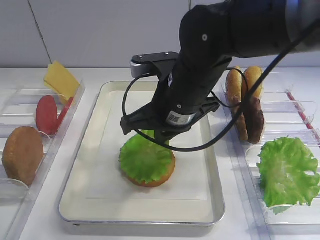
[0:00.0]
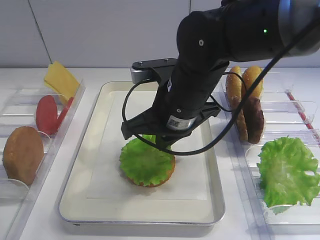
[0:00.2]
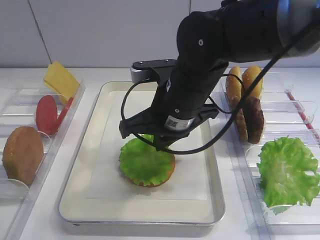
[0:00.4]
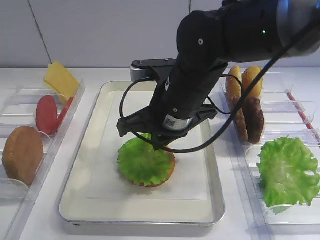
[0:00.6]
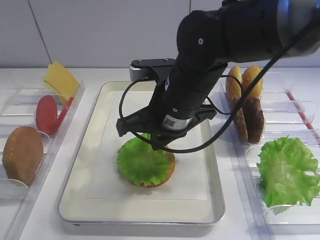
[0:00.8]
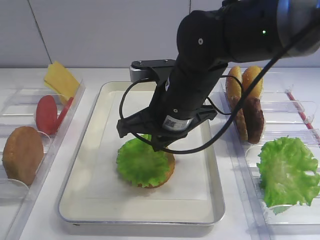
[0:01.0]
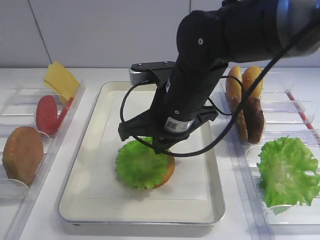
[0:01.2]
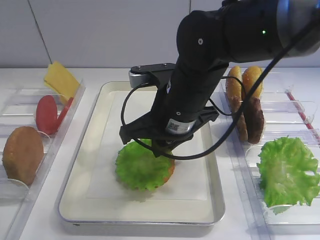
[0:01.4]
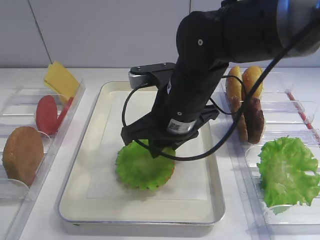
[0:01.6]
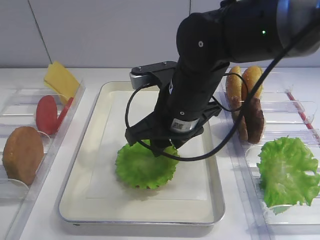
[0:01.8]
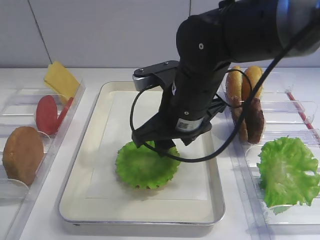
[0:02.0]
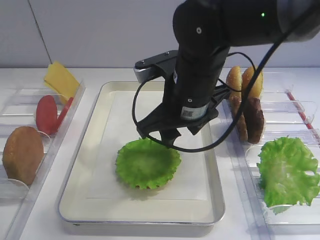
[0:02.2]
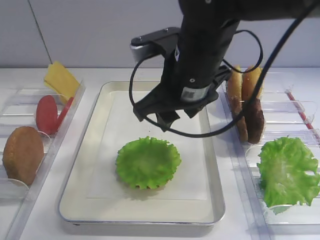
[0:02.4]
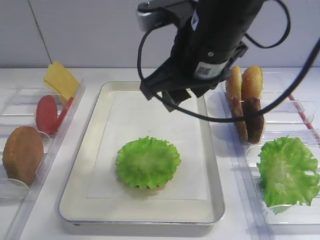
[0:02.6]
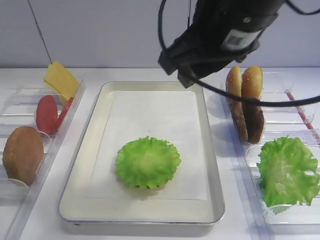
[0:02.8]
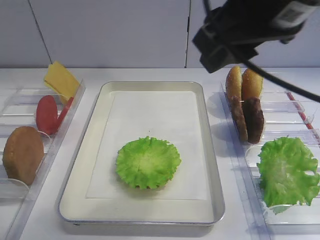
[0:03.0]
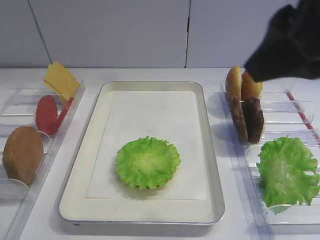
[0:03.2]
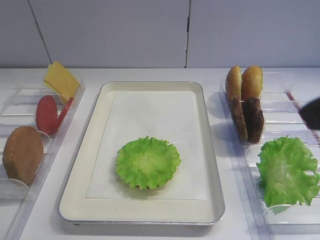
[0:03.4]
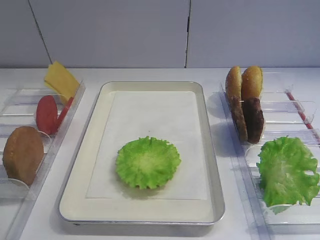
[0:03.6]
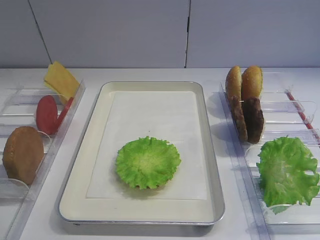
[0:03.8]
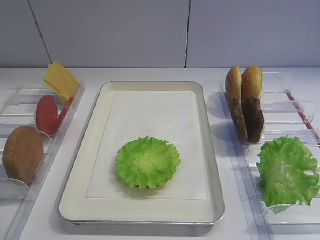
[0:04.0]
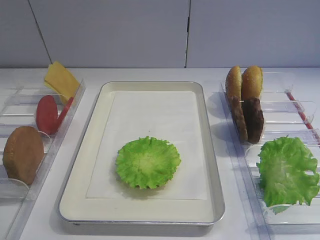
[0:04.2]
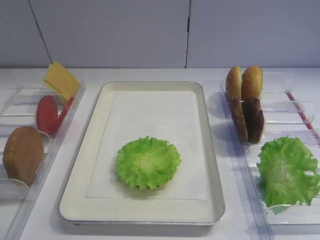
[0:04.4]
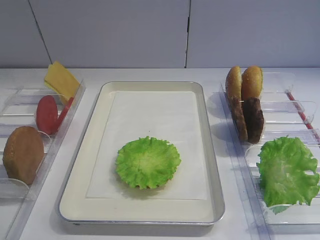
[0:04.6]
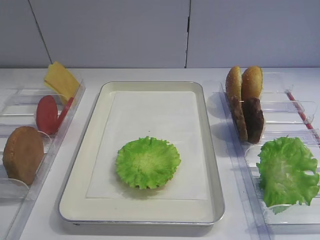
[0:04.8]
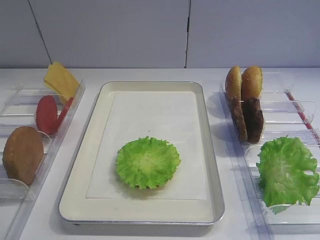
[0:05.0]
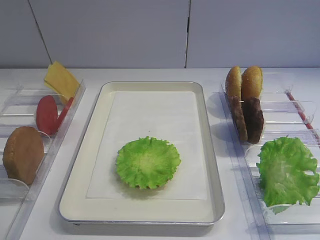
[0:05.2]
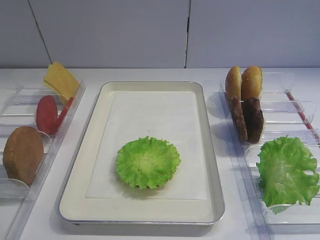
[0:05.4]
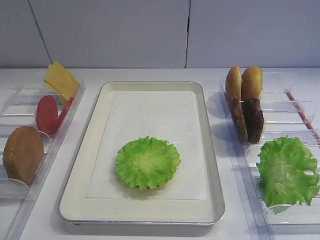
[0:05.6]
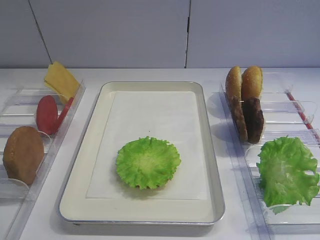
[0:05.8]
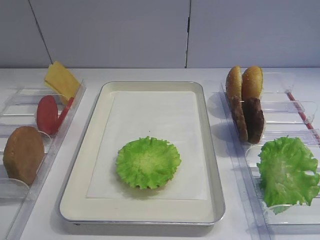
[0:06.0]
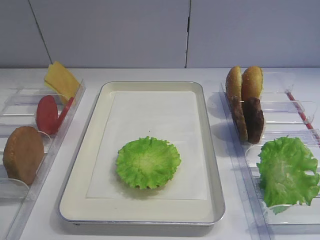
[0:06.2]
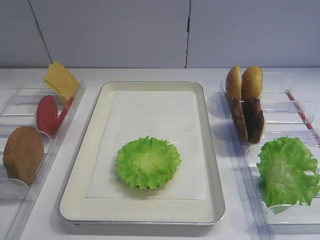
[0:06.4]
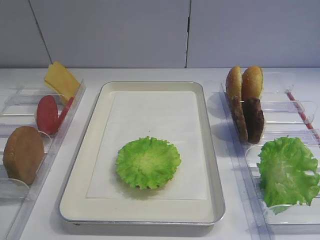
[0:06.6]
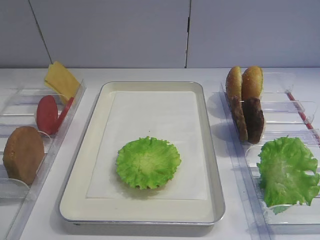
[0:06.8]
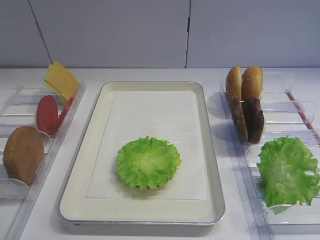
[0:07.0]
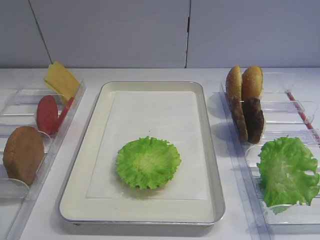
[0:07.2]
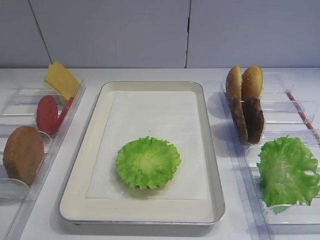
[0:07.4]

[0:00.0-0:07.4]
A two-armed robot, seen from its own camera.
Step, 0:00.0 to 0:02.0: Place the lettuce leaf on the bread slice with the right gripper.
0:00.0 to 0:01.4: Neither gripper changes place.
0:01.4 to 0:03.0: The right gripper heads upward, to the right and backward, covering roughly 25 cm, and opens.
0:03.0 to 0:04.4: The right gripper heads backward, to the right and downward, covering about 25 cm.
0:06.0 to 0:07.4: The two grippers keep their place.

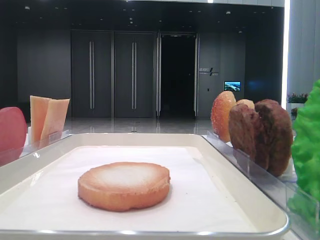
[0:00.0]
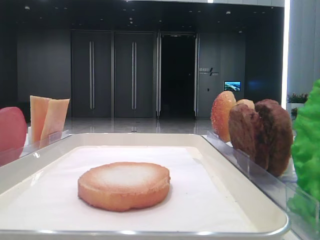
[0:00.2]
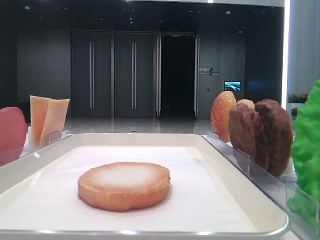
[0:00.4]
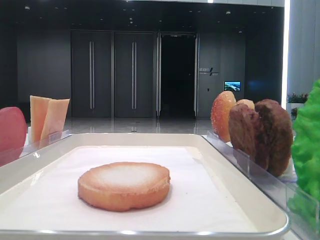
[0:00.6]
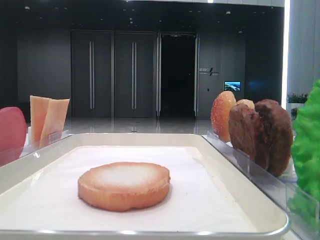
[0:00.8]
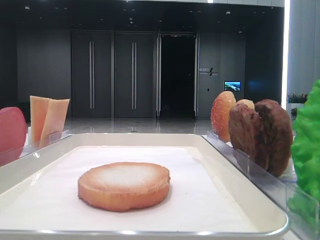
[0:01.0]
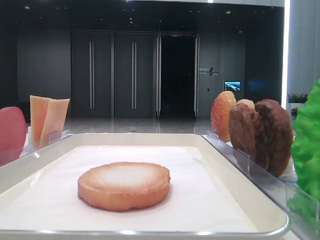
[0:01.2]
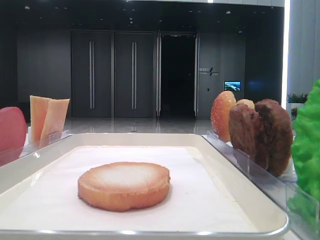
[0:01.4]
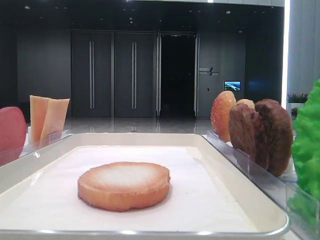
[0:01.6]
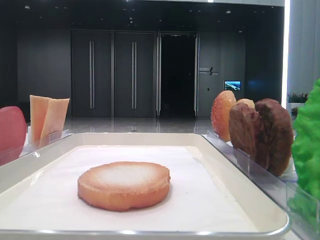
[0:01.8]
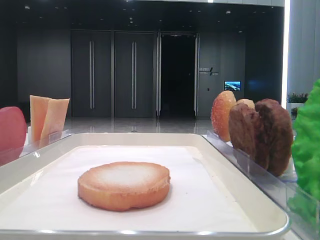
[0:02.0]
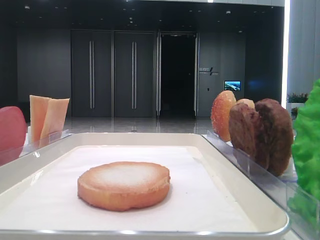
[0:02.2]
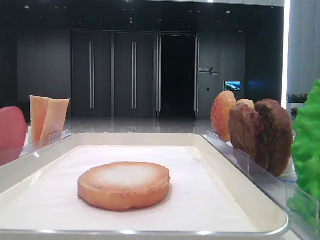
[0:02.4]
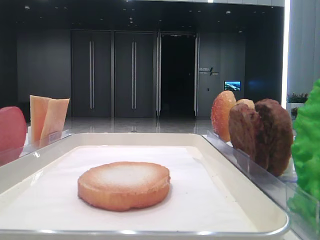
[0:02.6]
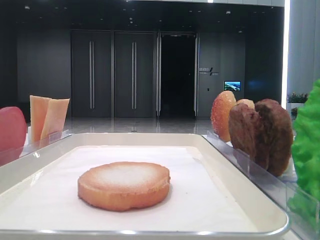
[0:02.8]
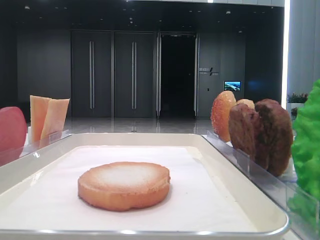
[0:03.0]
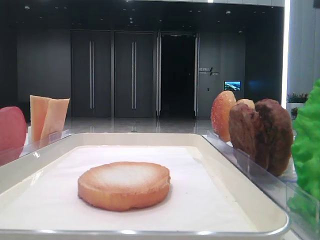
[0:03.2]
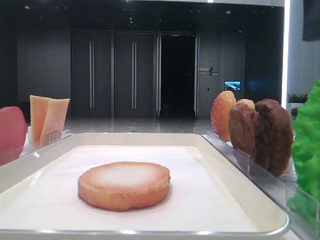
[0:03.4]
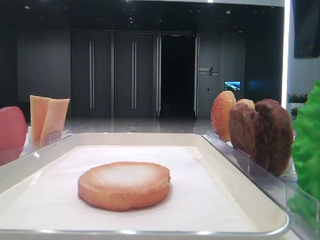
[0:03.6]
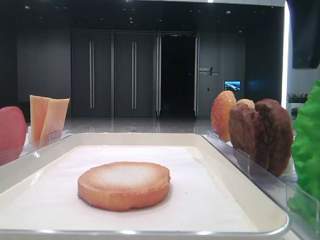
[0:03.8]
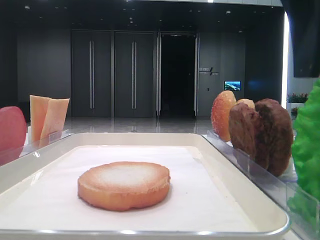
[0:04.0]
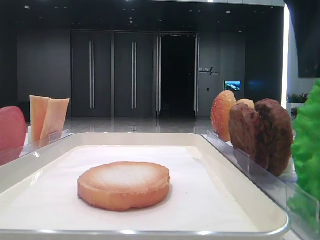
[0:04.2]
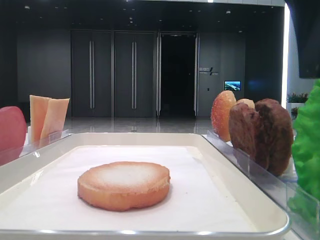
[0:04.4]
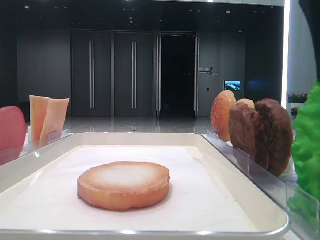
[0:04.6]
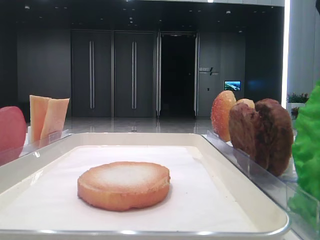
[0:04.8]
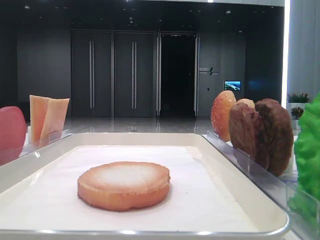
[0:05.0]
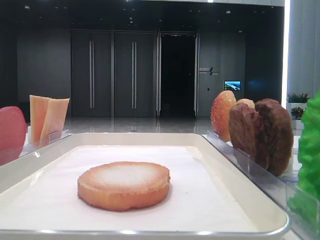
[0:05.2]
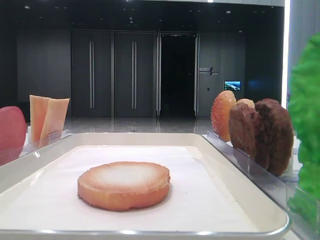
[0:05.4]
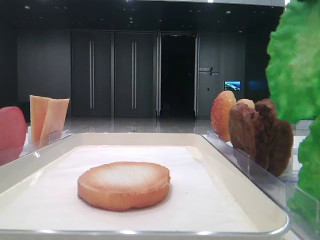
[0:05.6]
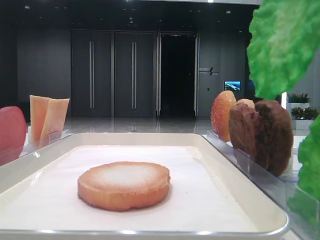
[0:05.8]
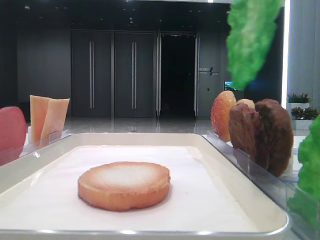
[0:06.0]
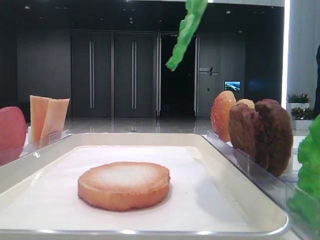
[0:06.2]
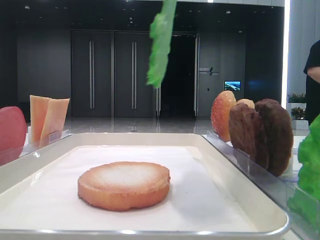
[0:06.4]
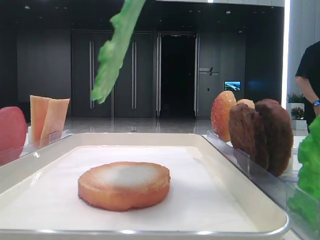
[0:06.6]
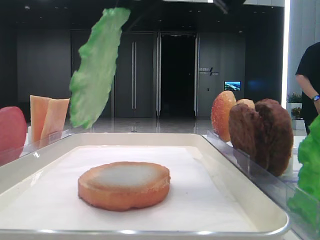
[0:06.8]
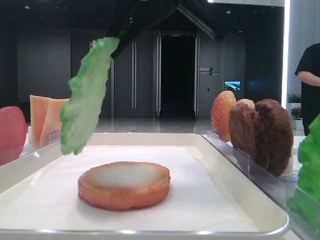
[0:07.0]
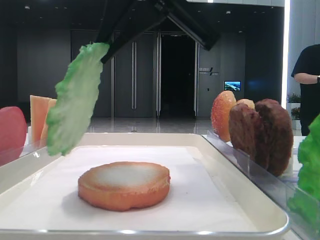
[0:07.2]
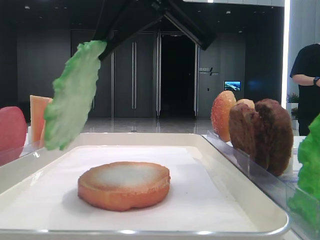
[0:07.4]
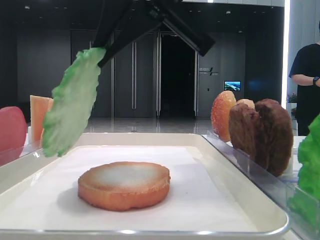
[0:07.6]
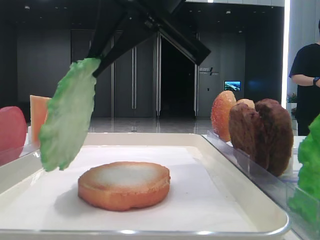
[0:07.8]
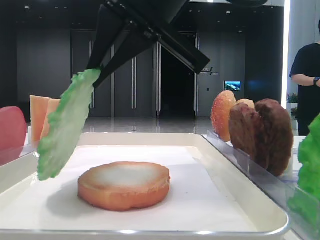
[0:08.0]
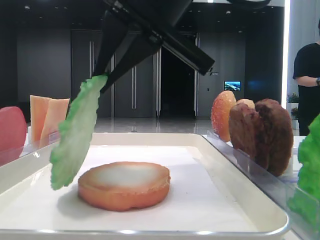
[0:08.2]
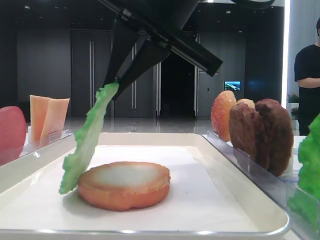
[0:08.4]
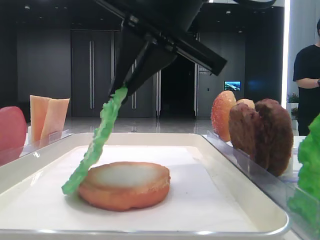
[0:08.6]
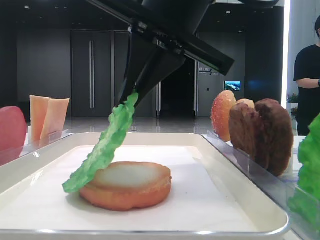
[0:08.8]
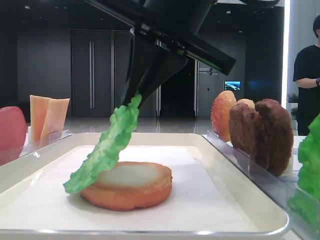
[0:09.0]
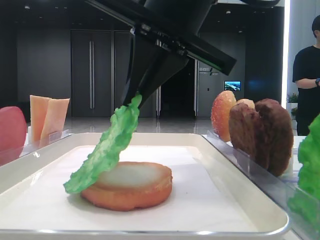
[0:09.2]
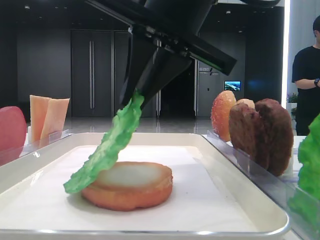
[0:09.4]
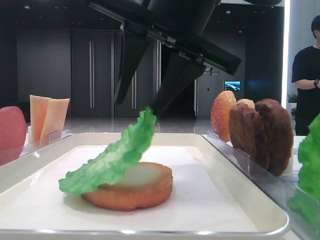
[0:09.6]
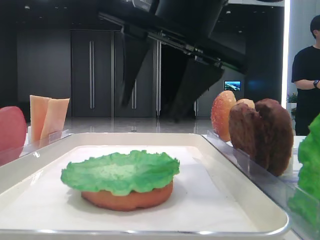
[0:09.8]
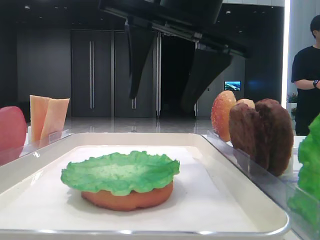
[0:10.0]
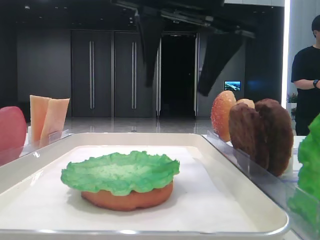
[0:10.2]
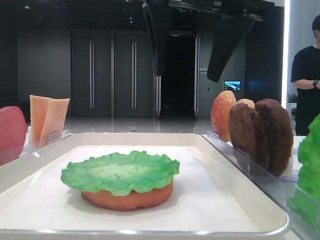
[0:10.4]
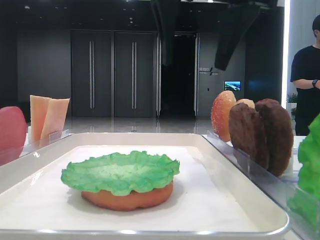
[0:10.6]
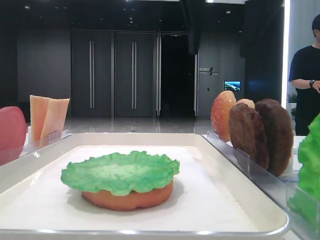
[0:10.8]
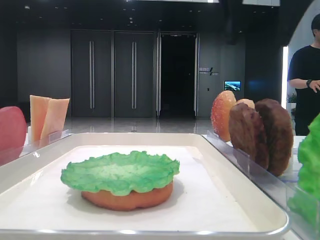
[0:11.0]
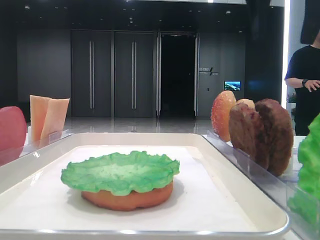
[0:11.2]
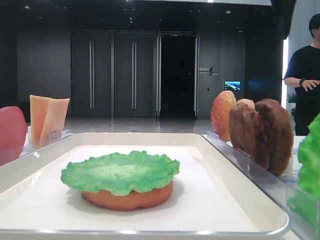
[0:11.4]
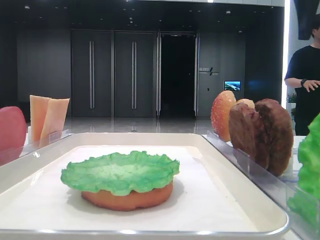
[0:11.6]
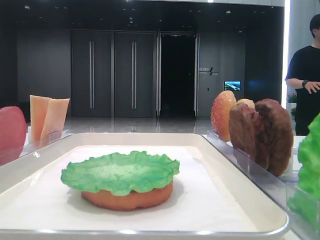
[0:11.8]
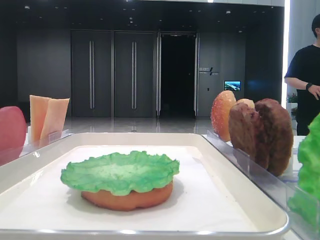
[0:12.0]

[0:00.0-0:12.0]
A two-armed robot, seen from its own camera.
Step, 0:00.0 to 0:04.6: Grab the lettuce leaf with the right hand.
Step, 0:04.8 to 0:09.8: Place the lettuce leaf on the bottom bread with the right hand.
0:03.0 to 0:04.4: The right gripper moves downward, approximately 5 cm.
0:04.4 to 0:06.0: The right gripper moves upward, about 10 cm, and closes.
0:06.0 to 0:07.6: The right gripper shifts roughly 15 cm to the left, downward and forward. Meanwhile the left gripper closes.
0:07.6 to 0:09.0: There are only small adjustments of the grippers.
0:09.0 to 0:10.4: The right gripper opens its fingers.
0:10.4 to 0:12.0: The right gripper moves to the right, about 25 cm.

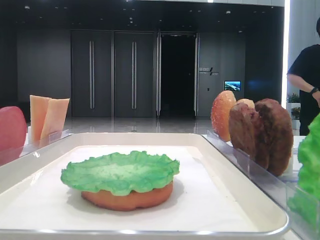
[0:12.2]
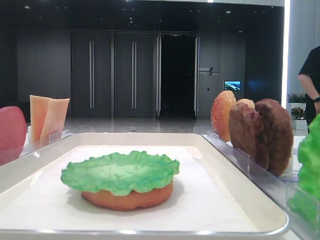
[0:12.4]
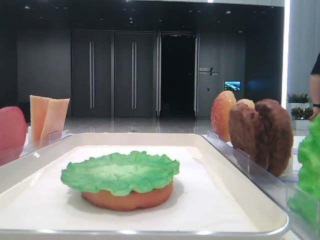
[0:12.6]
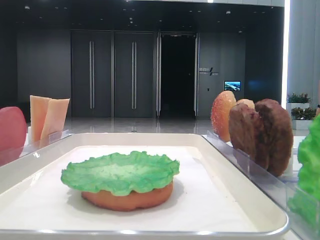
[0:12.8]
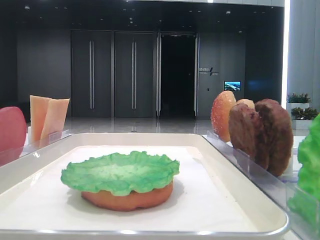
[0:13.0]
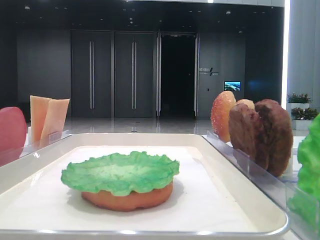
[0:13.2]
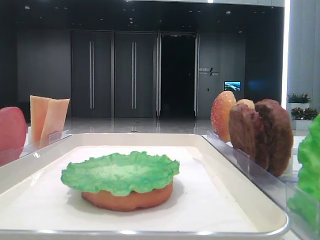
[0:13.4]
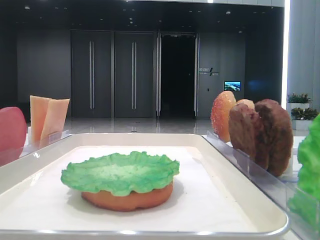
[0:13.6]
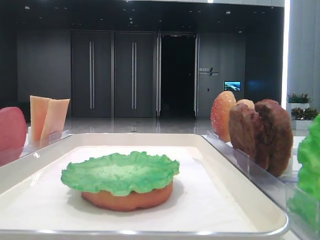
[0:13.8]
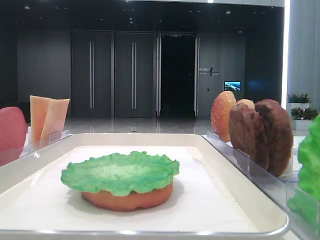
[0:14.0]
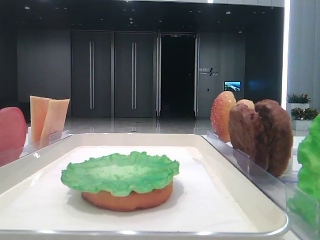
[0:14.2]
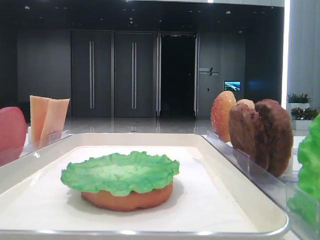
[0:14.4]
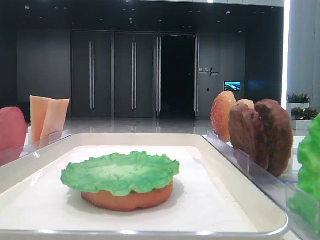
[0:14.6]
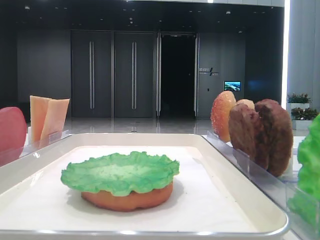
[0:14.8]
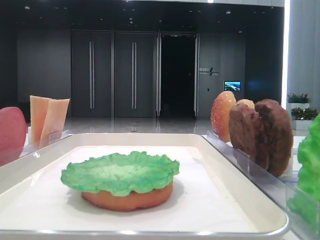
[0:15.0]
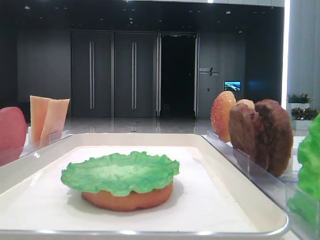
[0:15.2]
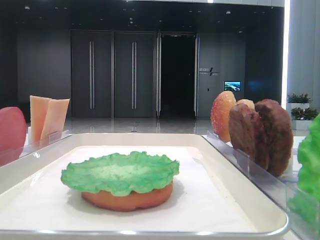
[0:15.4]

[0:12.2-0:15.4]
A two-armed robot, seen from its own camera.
0:12.2 to 0:13.8: The right gripper moves backward, roughly 30 cm.
